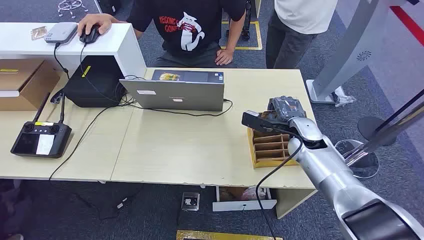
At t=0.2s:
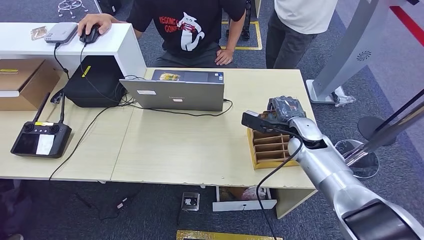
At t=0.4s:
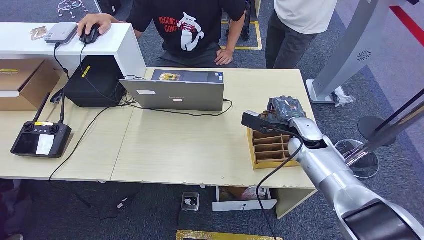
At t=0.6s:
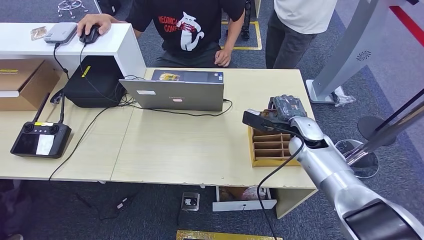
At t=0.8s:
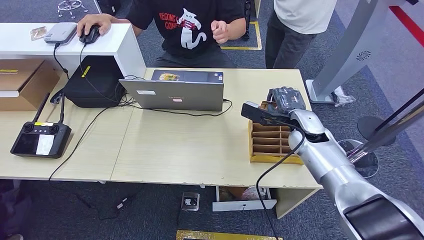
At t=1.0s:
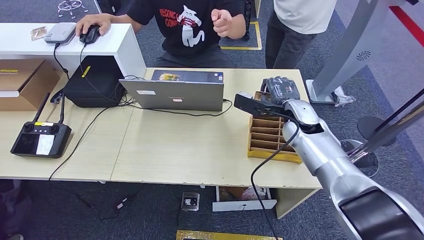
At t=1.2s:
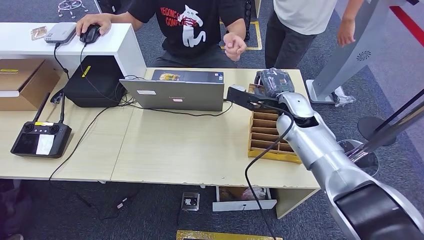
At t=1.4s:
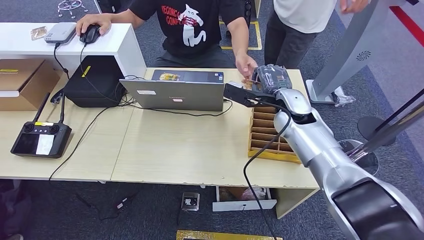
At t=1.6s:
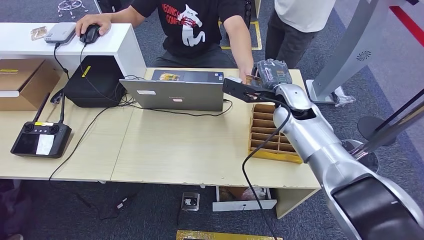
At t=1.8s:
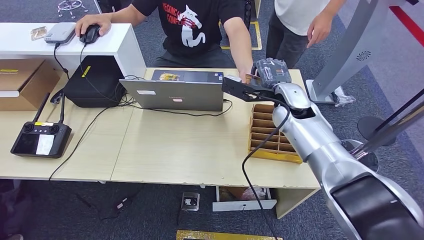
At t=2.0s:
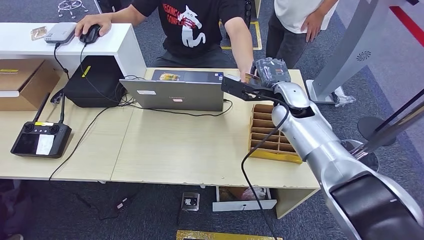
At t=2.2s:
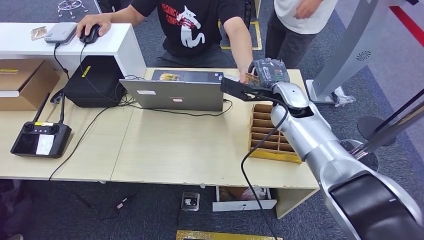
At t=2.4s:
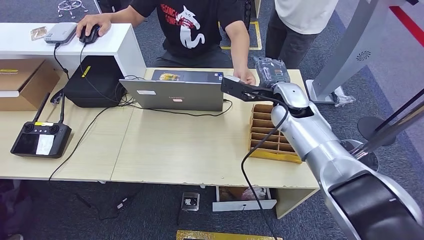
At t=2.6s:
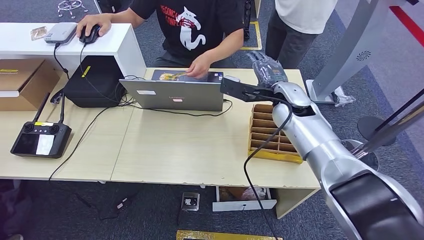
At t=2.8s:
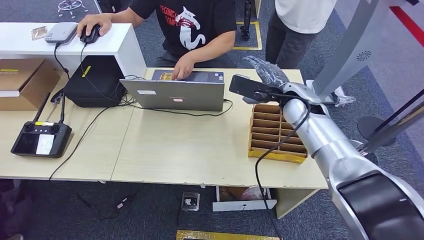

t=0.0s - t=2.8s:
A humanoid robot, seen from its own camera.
Step, t=0.0s - t=1.2s: Pick up the key card from the card box.
Step, t=1.4s - t=2.8s: Hand the key card to the target.
t=1.4s - t=2.8s: There are only small adjustments of the hands.

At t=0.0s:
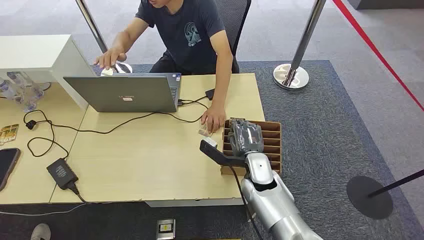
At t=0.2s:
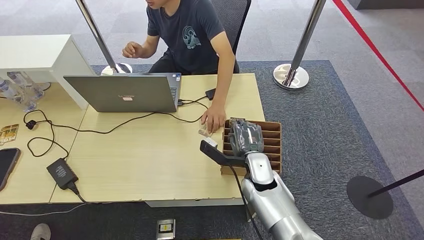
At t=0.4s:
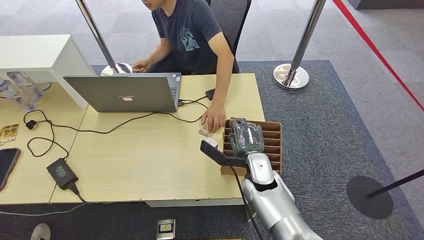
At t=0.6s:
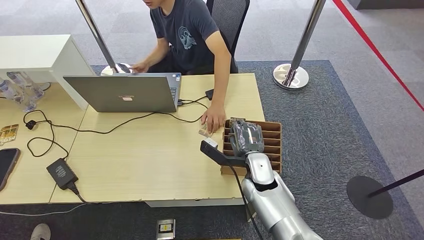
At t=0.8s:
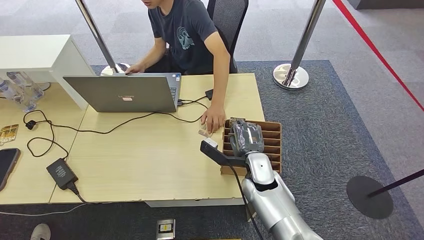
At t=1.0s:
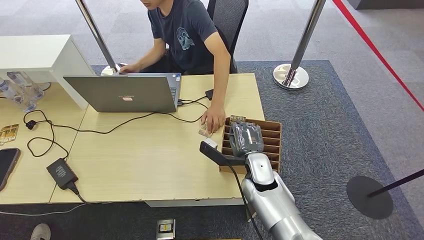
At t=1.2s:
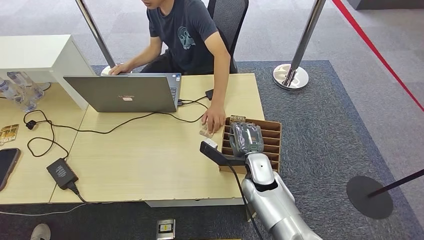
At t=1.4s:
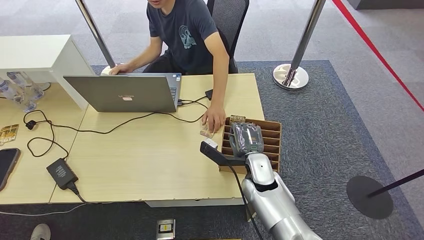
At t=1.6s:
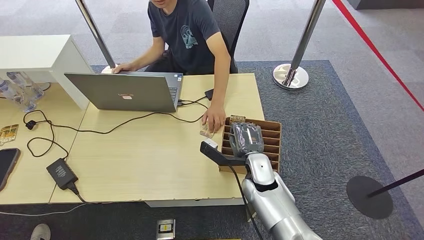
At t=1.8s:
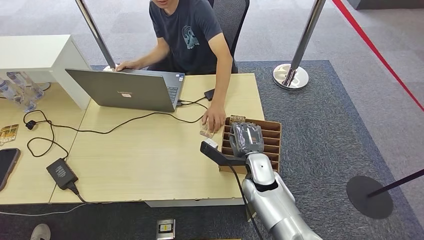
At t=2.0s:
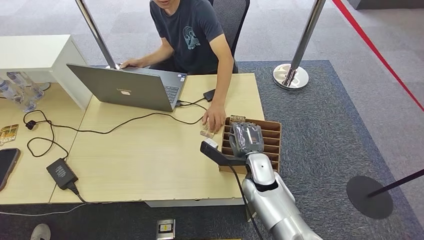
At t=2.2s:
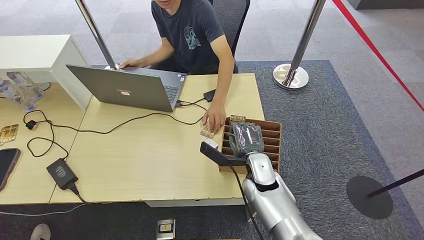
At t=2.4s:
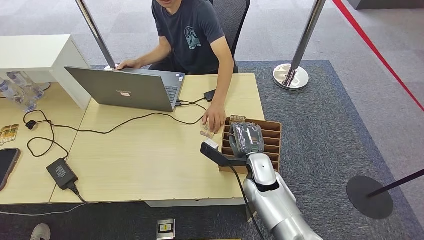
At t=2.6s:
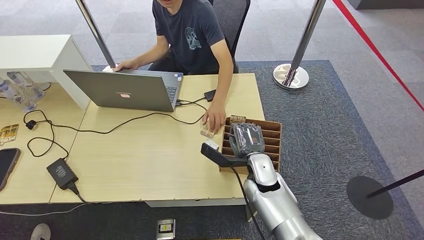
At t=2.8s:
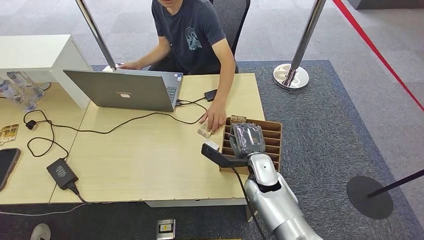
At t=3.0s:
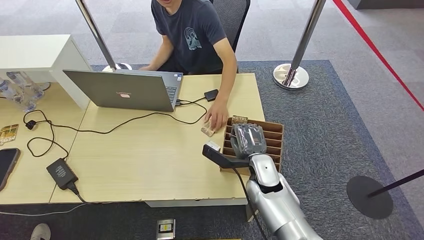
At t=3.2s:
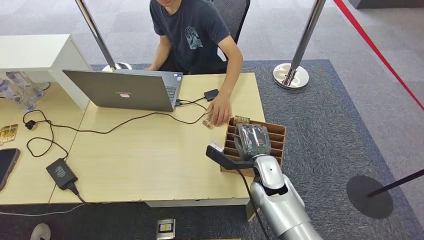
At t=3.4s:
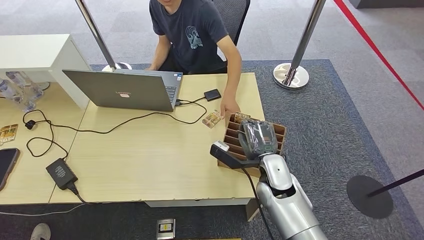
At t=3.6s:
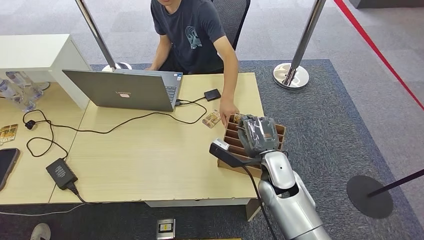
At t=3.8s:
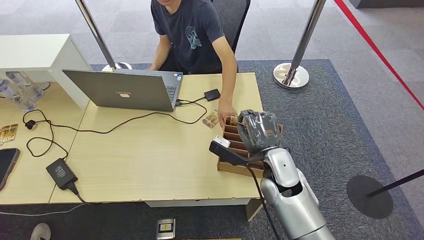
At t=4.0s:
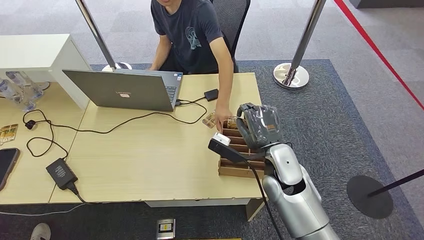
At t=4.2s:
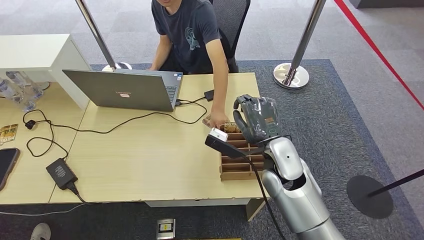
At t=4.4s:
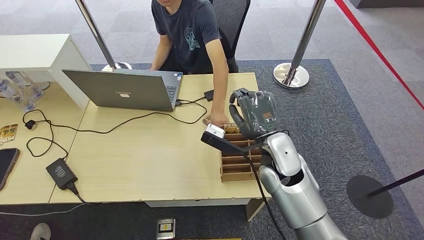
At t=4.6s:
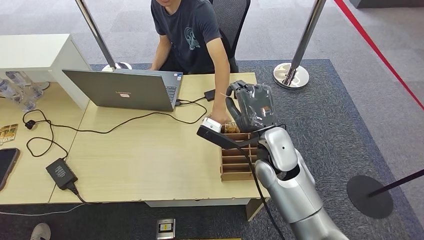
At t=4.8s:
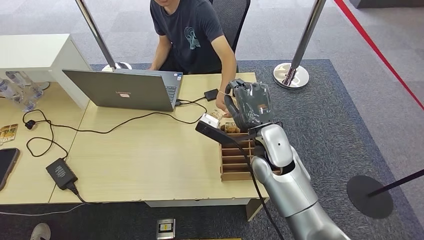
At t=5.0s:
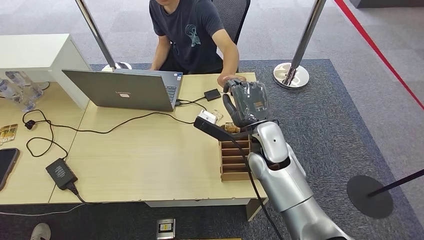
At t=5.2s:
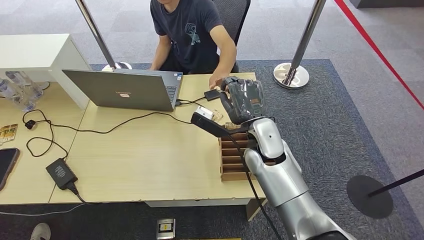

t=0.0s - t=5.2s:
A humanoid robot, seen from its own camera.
Step, t=0.0s - t=3.4s: Pick up the key card from the card box.
Step, t=3.6s - t=5.2s: Hand the key card to the target.
t=1.8s - t=3.4s: There are only small adjustments of the hands.
t=3.4s - t=5.2s: The right hand travels upward by approximately 10 cm.

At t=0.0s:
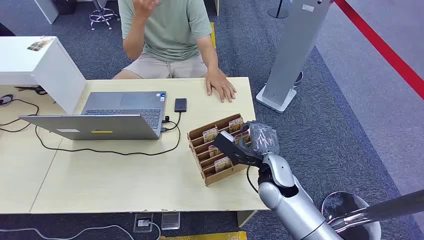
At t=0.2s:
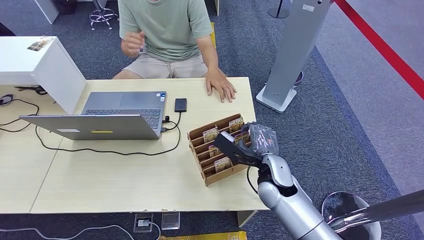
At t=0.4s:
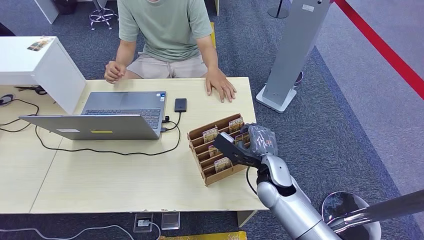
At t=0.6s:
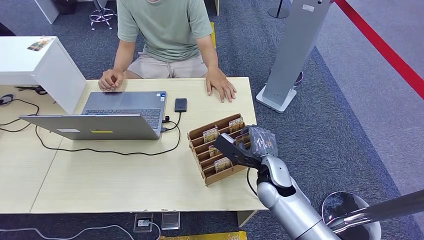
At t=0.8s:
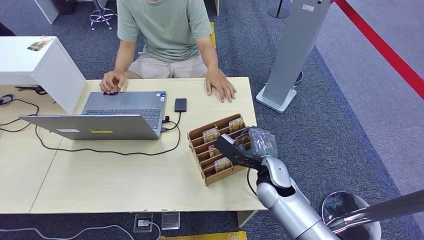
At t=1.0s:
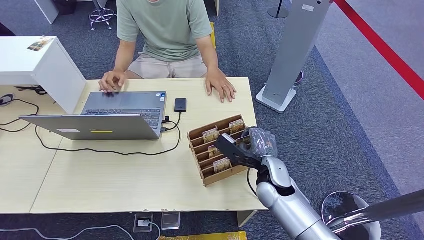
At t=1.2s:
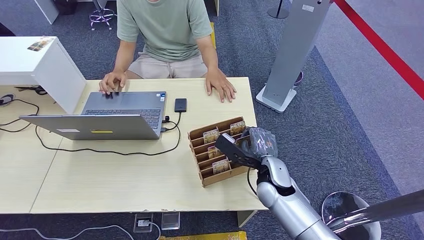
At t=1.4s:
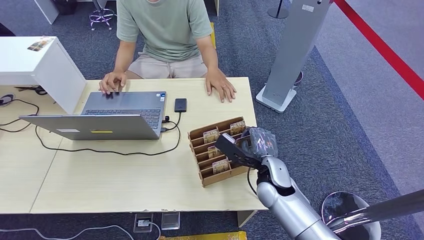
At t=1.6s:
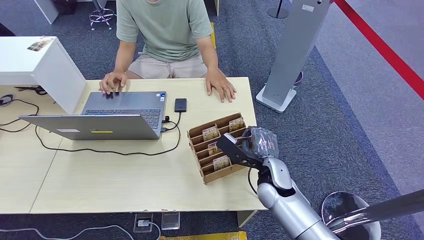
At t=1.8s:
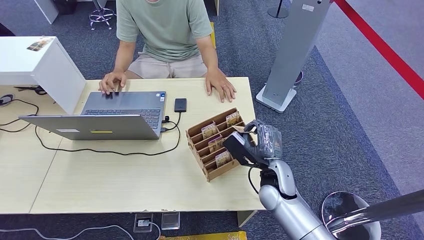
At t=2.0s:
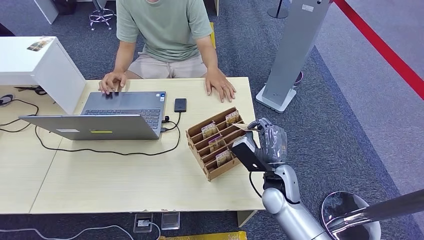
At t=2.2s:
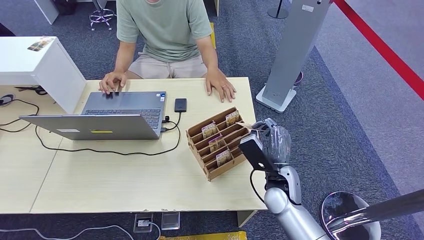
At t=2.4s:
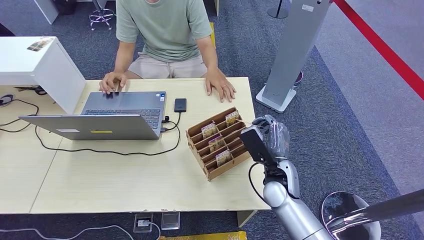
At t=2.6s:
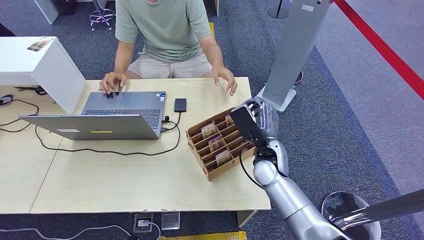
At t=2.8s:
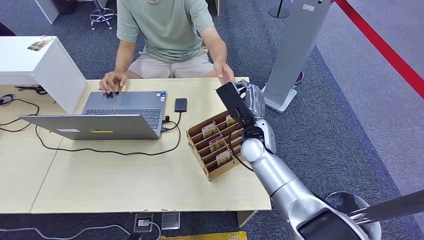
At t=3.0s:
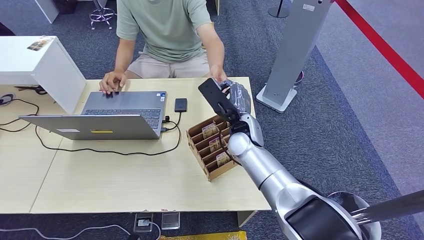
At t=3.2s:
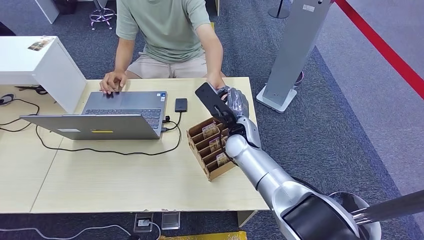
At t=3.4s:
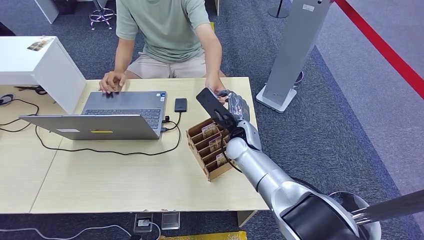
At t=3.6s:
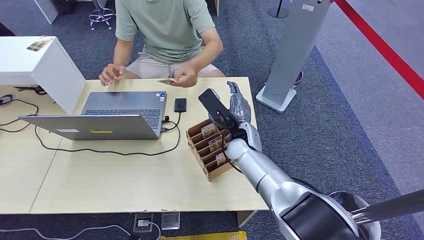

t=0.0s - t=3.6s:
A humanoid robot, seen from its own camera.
Step, t=0.0s - t=1.8s: Pick up the key card from the card box.
Step, t=2.8s - t=3.6s: Hand the key card to the target.
t=1.8s - t=3.6s: The right hand heads forward, to the left and upward, covering about 15 cm.
